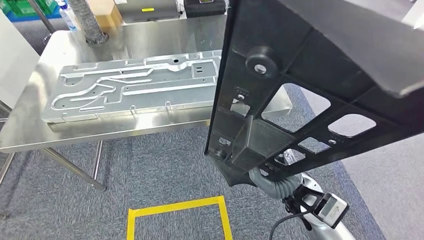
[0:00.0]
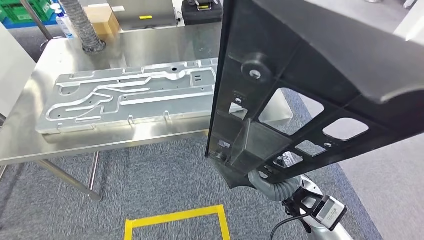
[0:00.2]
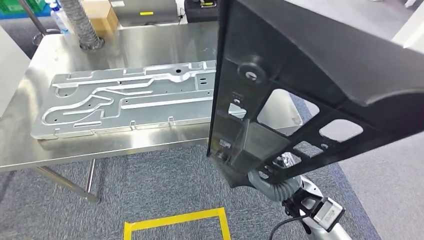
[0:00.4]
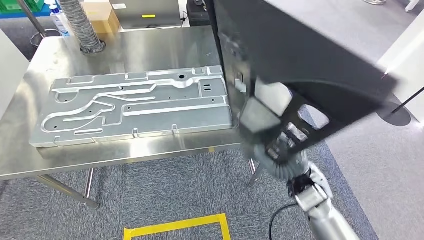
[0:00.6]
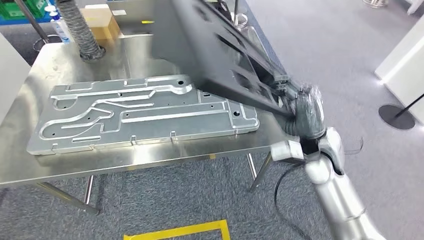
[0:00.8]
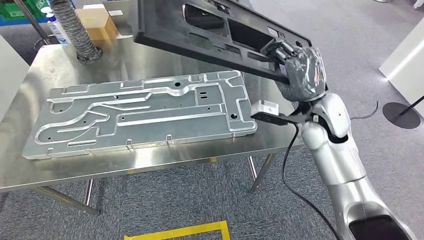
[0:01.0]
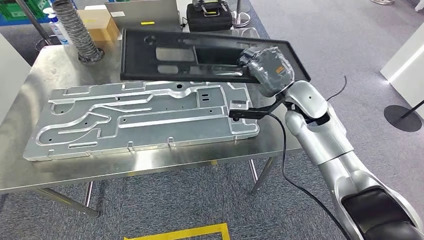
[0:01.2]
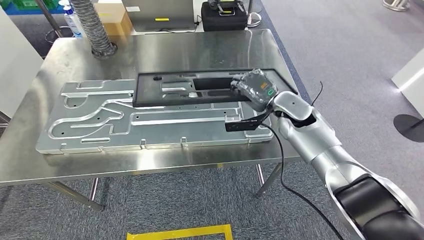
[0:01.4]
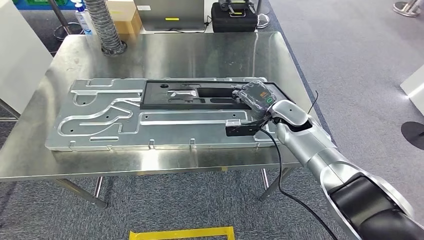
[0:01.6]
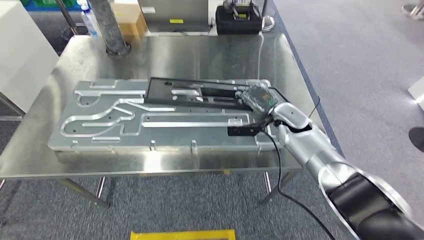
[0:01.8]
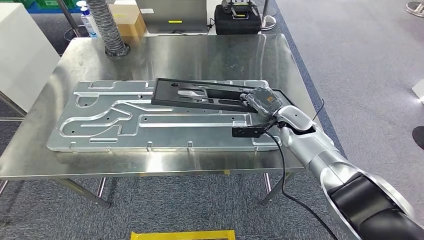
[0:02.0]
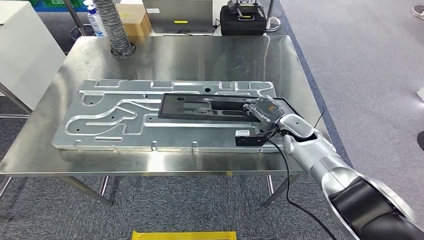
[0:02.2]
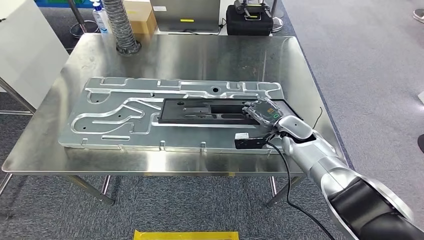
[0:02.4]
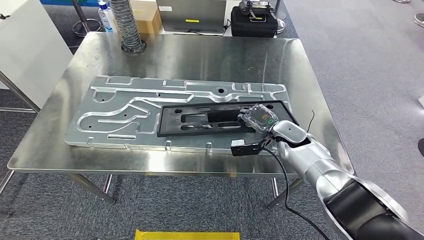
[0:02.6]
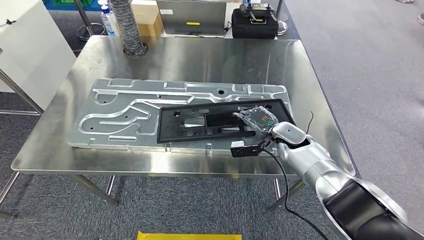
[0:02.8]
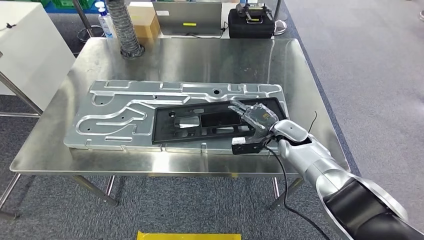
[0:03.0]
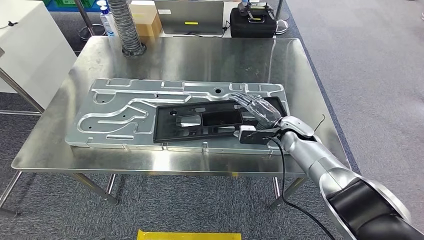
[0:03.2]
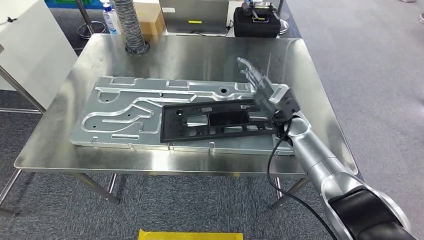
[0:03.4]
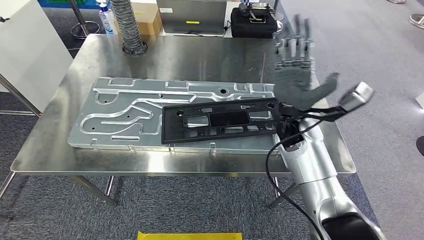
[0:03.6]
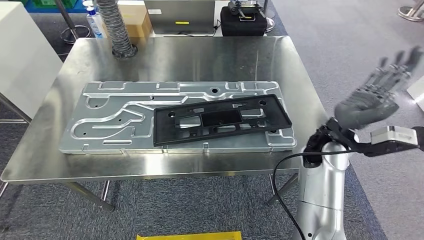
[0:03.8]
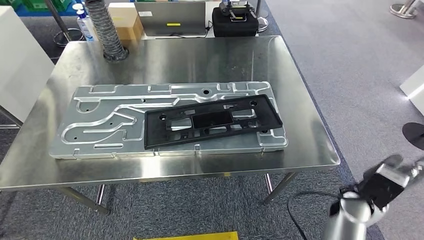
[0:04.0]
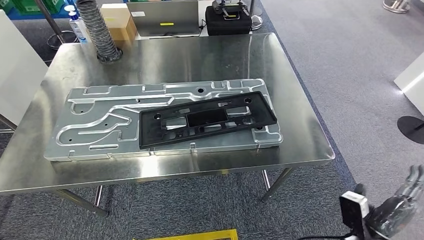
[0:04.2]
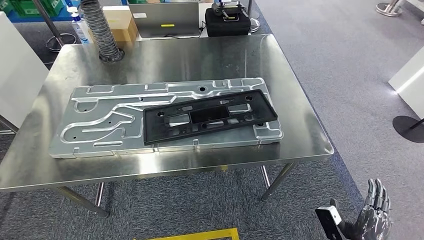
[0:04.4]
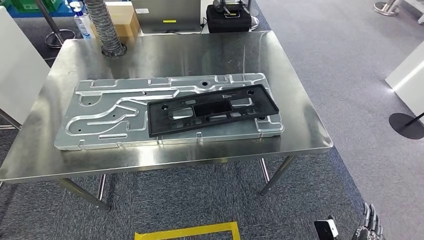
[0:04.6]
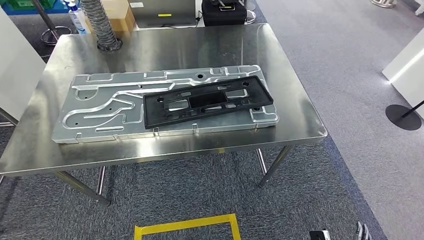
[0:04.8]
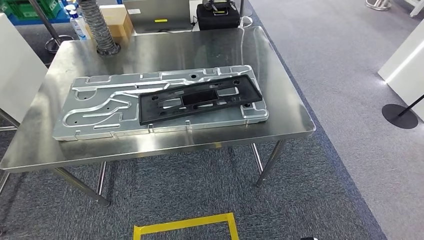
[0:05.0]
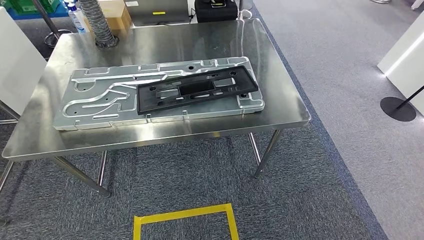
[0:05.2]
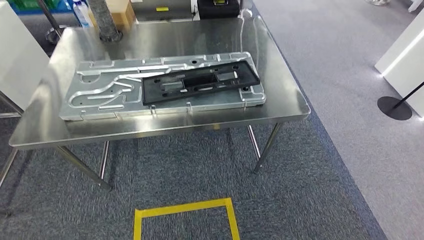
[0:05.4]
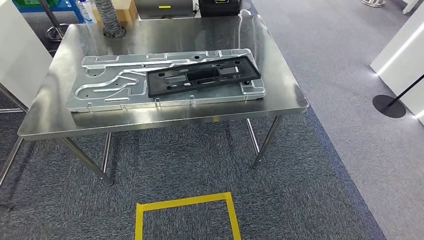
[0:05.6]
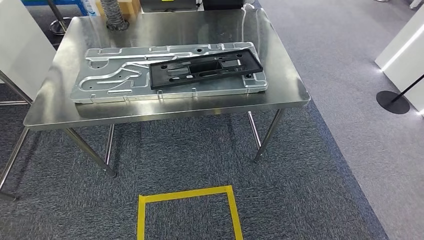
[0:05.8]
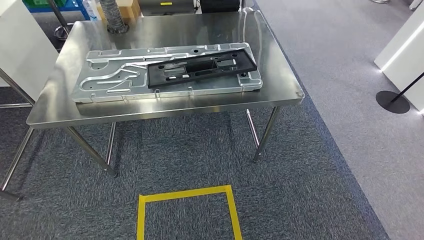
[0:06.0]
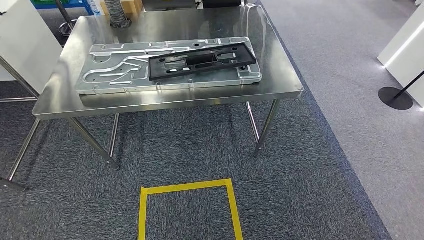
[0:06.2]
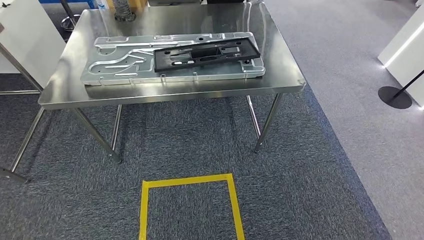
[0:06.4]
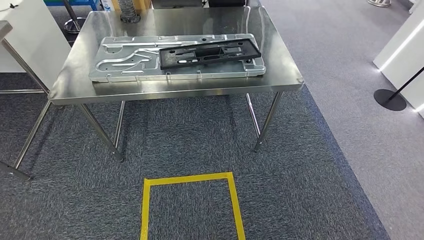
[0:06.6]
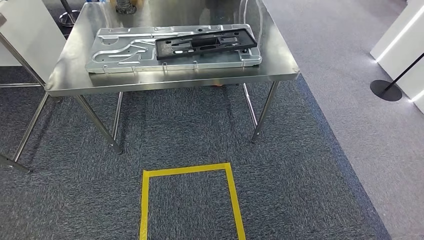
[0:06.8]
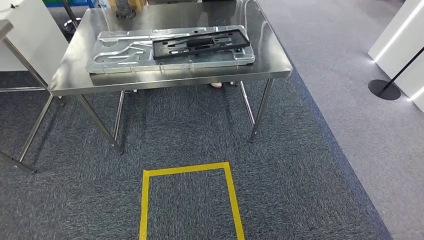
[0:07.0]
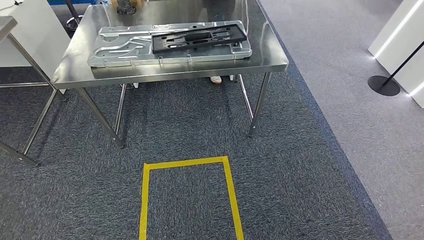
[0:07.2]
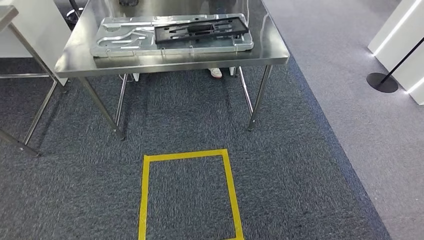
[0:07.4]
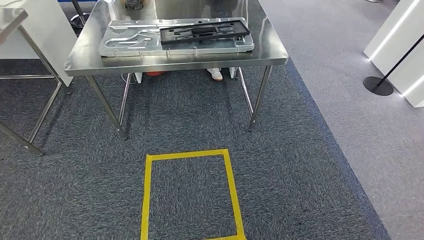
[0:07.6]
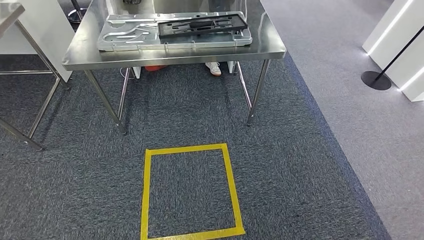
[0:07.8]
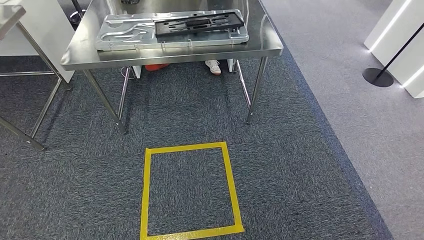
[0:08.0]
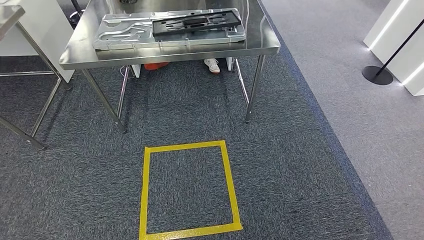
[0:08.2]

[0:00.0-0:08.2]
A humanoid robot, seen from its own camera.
Step, 0:01.0 to 0:03.4: Insert the large material into the corresponding slot on the workbench.
Step, 0:05.0 to 0:08.2: Move to the initial position of the shelf.
